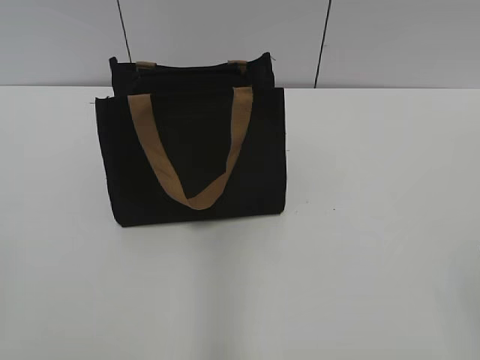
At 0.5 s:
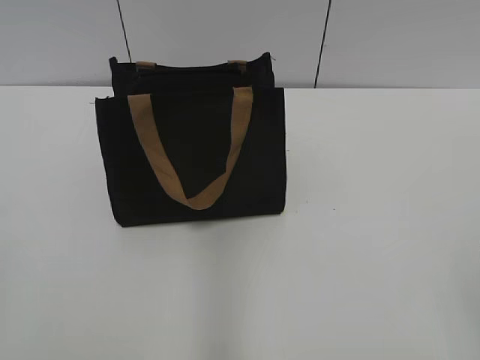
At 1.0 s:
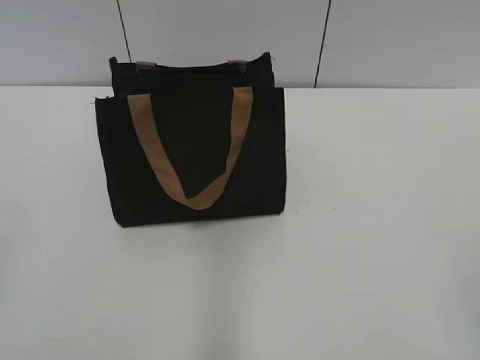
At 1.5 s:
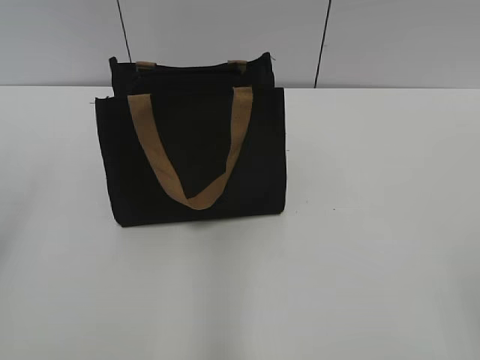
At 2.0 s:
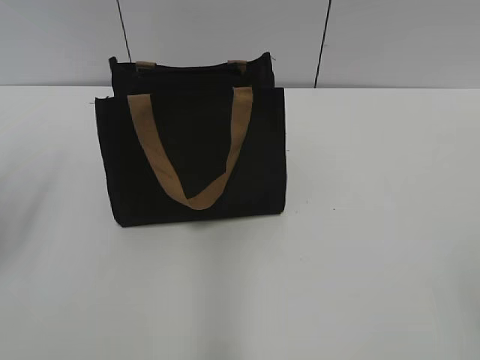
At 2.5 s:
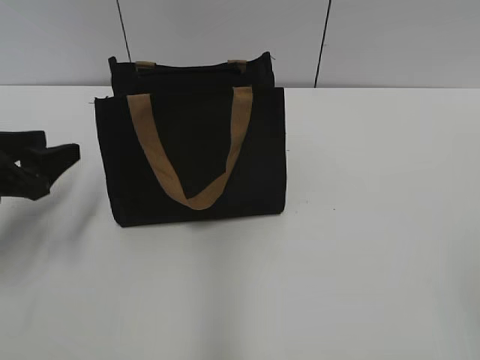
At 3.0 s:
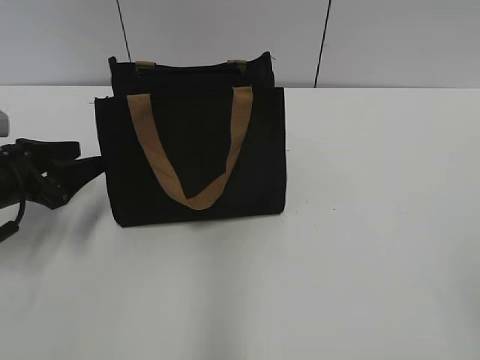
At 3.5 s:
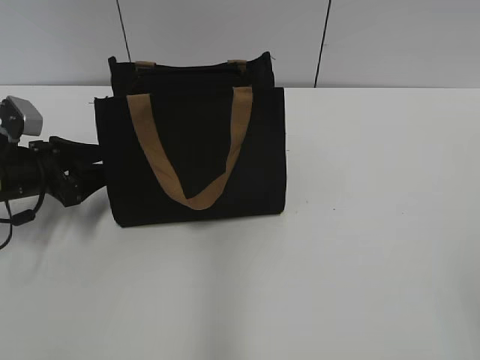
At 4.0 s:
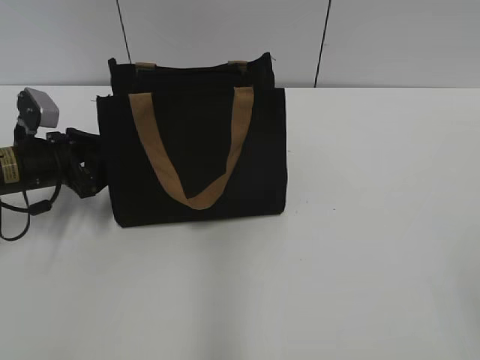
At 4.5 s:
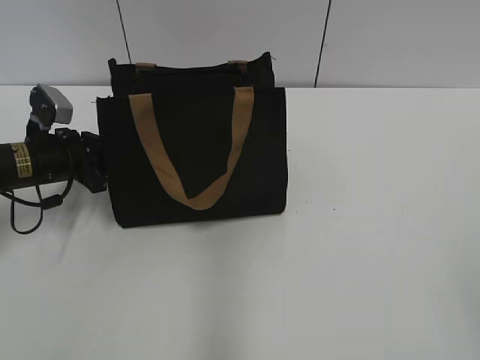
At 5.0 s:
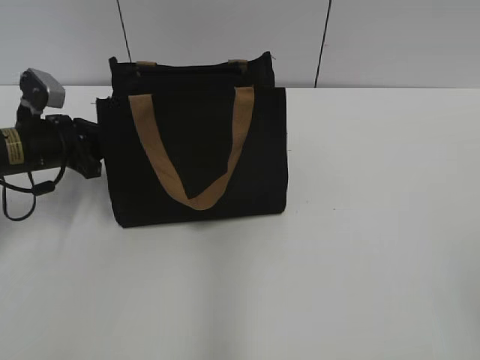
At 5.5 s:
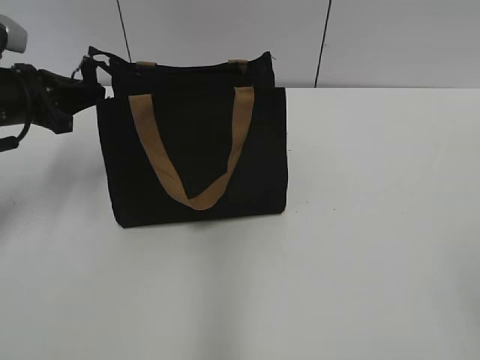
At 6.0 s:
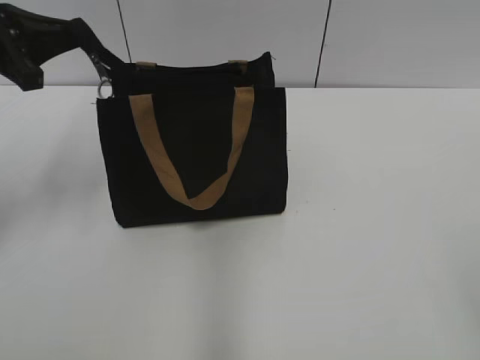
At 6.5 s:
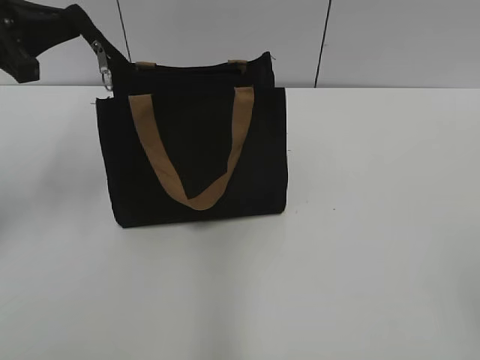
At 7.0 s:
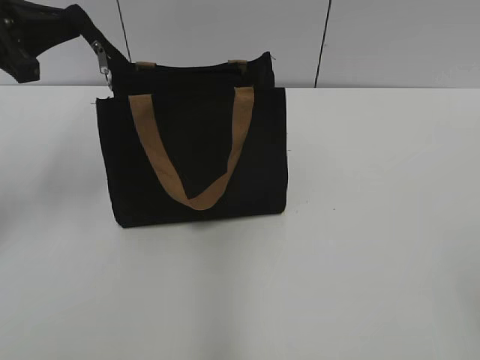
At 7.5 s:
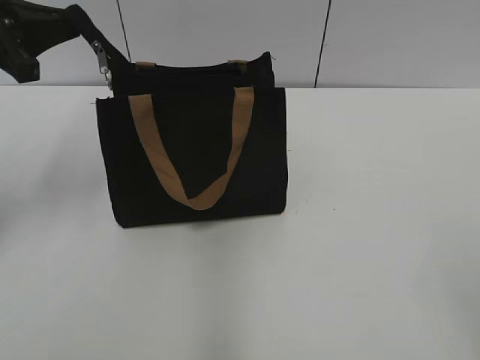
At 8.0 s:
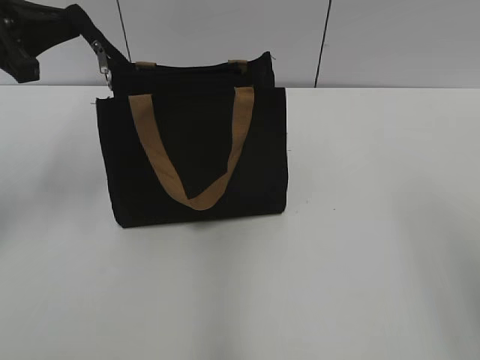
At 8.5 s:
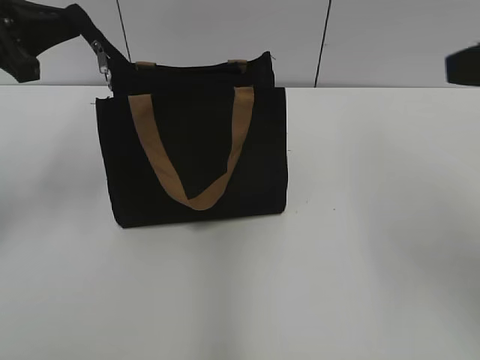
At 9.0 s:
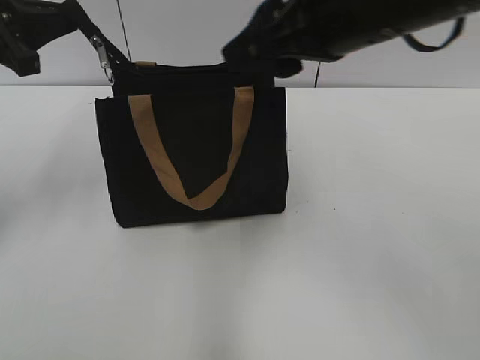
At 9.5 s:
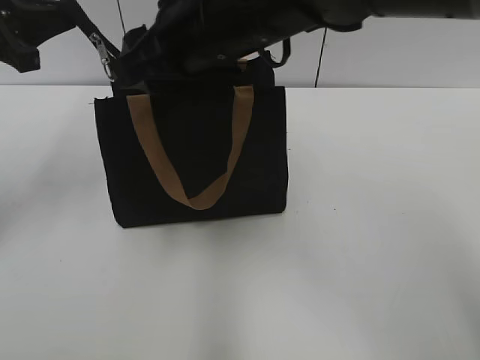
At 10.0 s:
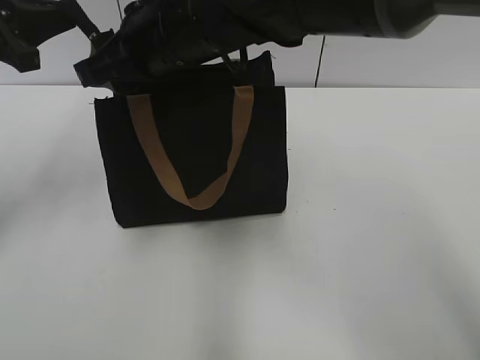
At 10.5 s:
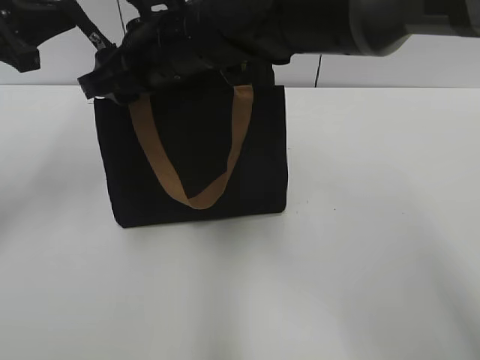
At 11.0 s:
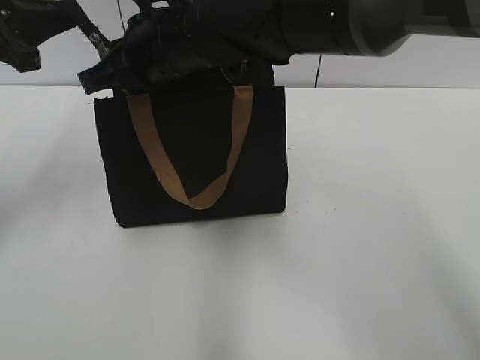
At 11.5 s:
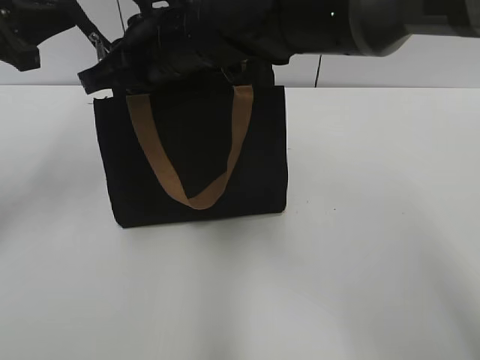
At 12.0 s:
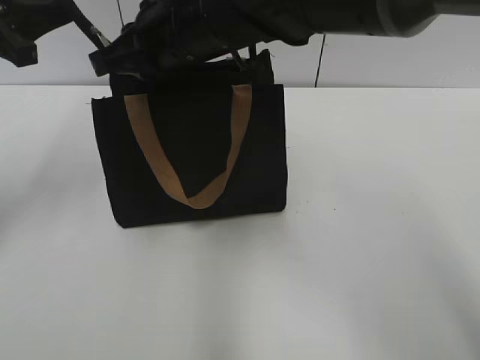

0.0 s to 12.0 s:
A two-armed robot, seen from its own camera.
2.0 to 4.0 s: The left gripper is displaced downward and forward by about 20 cm.
4.0 to 6.0 s: The left gripper shifts some 15 cm upward, and closes its fingers.
8.0 to 10.0 s: The right gripper heads to the left and forward, covering some 40 cm.
10.0 to 12.0 s: The right gripper closes.

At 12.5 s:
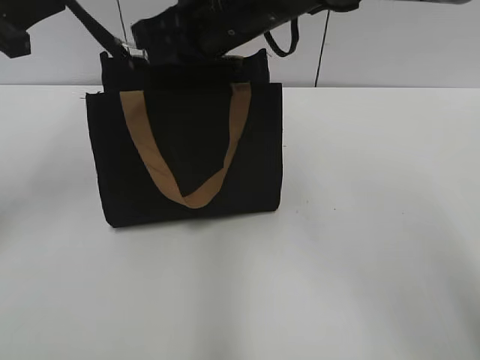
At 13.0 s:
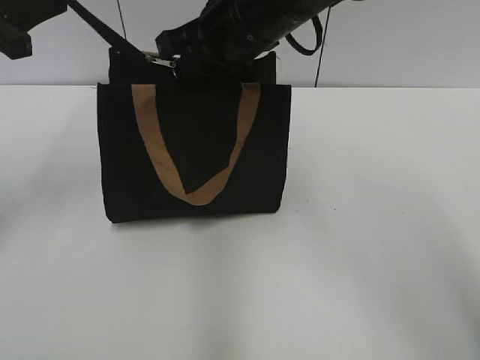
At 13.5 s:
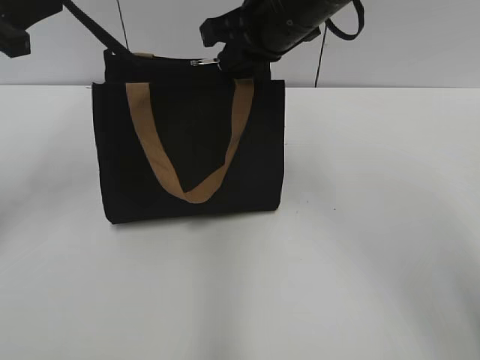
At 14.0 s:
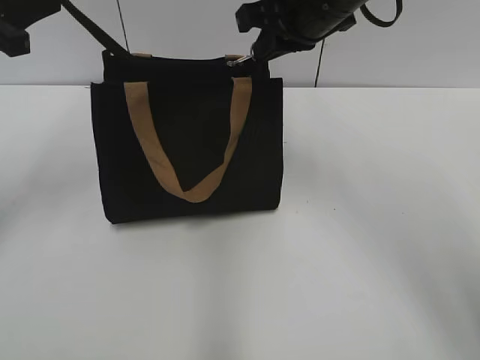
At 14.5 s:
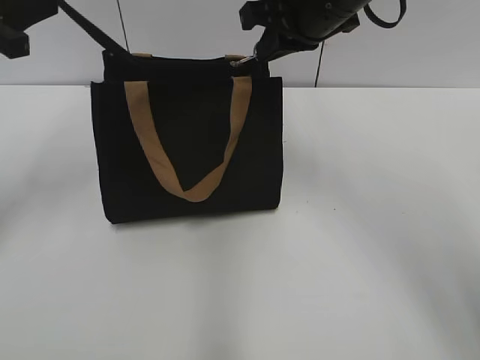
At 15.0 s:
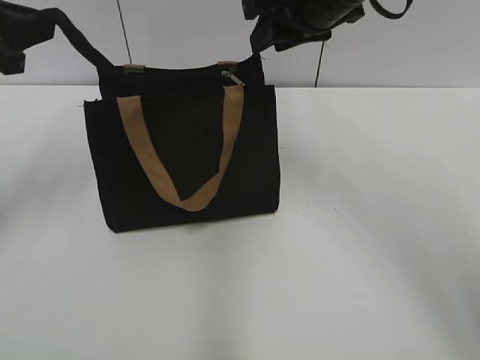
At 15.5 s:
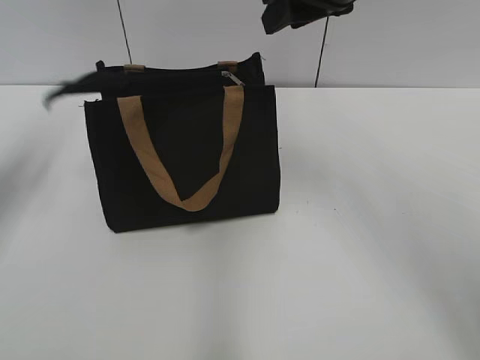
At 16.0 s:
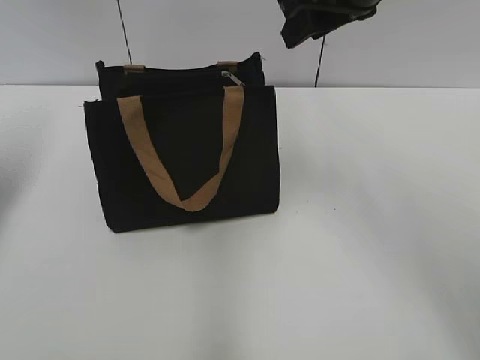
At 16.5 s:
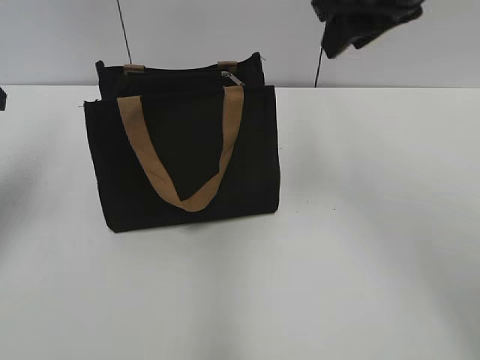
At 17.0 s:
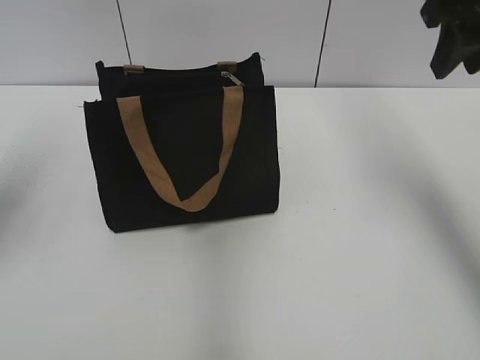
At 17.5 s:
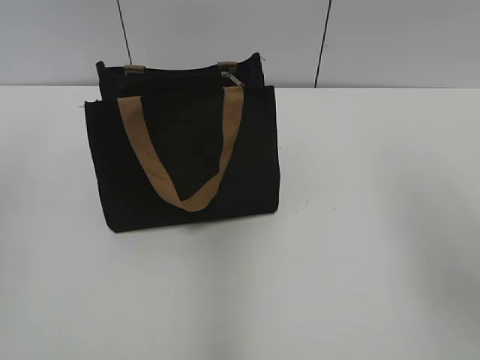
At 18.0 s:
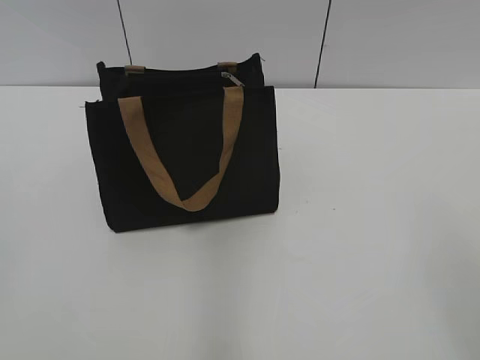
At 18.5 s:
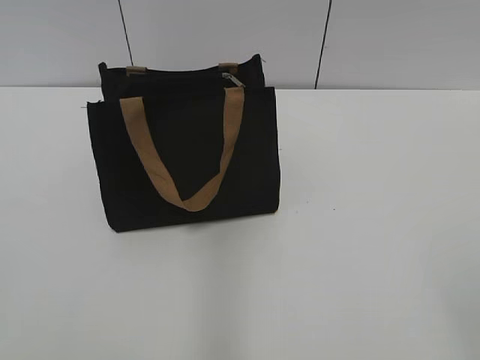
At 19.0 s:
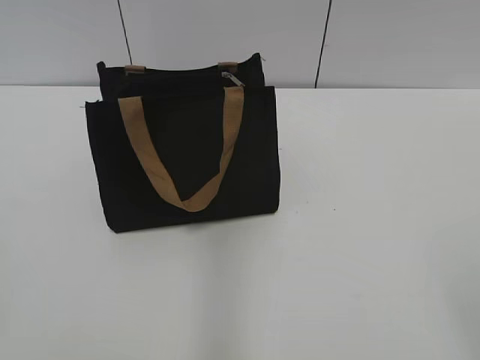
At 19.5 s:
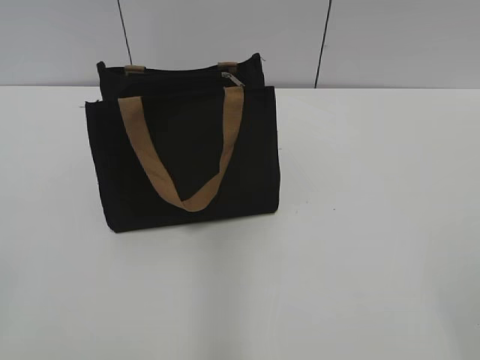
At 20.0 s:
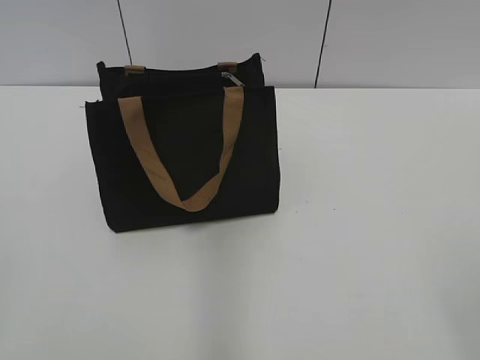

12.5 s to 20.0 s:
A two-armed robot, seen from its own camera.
Step, 12.5 to 14.5 s: Zip up the bag with your right hand.
Step, 15.0 to 15.5 s: Grab the zipper with your left hand.
12.5 to 14.5 s: The right gripper travels to the right by approximately 10 cm.
14.5 to 16.5 s: The left gripper heads downward, covering about 5 cm, and opens. The right gripper travels upward by some 5 cm, and opens up.
16.5 to 18.0 s: The left gripper shifts roughly 25 cm backward. The right gripper is displaced backward and to the right by approximately 35 cm.

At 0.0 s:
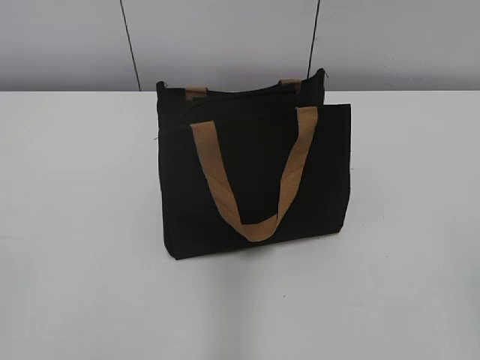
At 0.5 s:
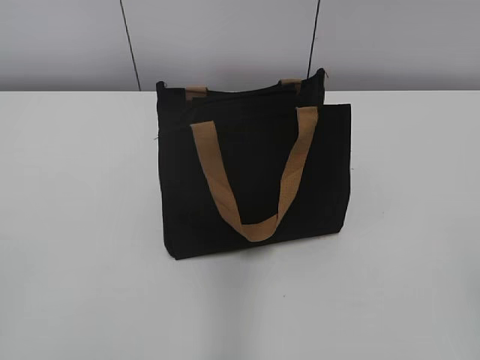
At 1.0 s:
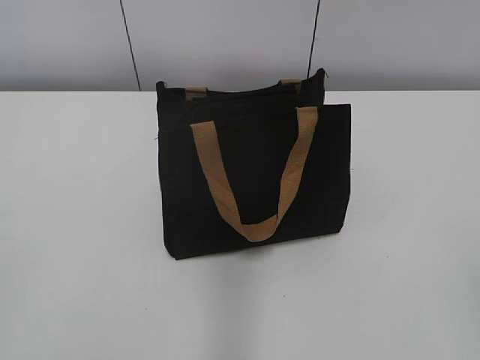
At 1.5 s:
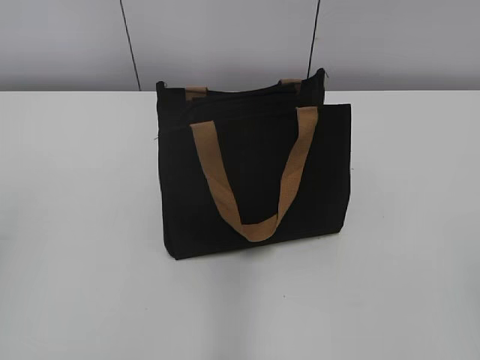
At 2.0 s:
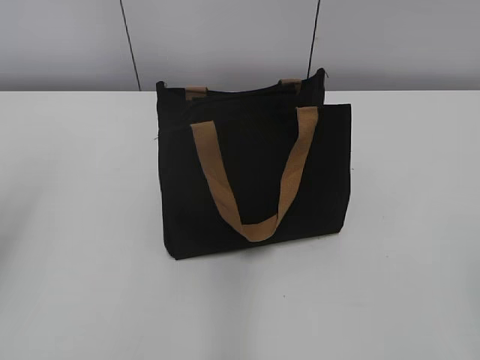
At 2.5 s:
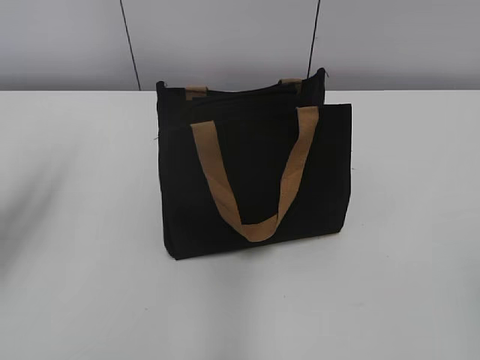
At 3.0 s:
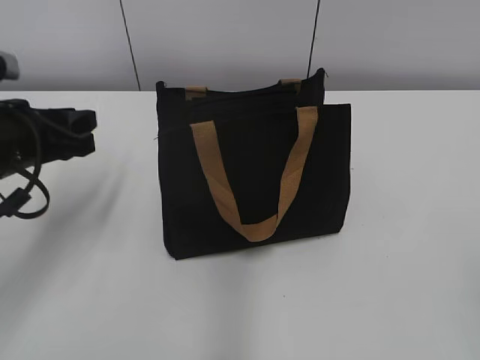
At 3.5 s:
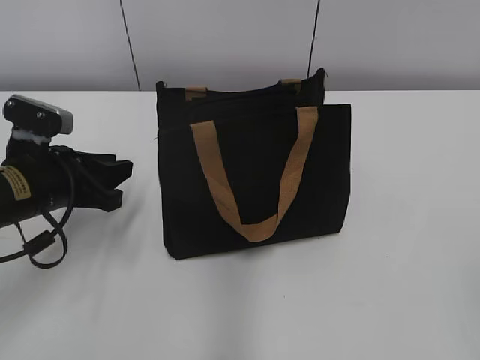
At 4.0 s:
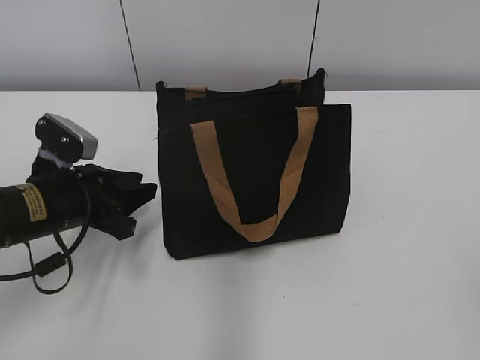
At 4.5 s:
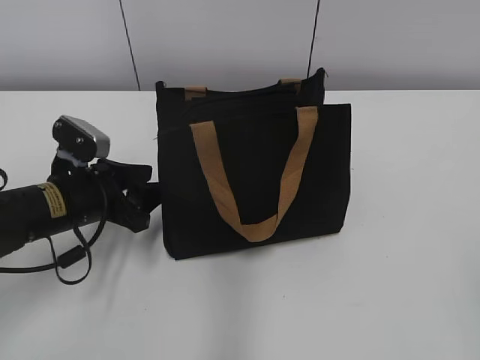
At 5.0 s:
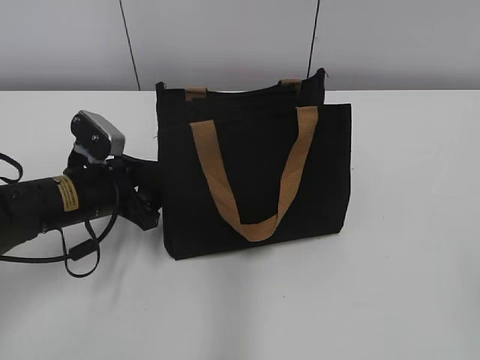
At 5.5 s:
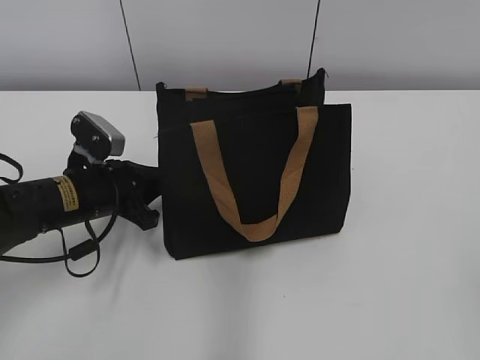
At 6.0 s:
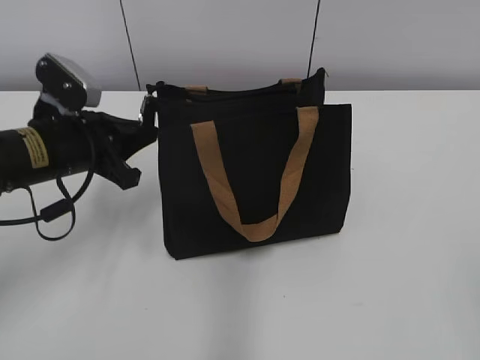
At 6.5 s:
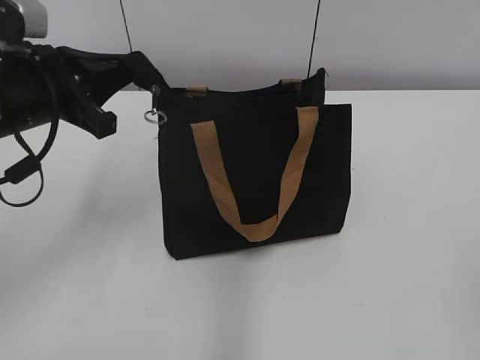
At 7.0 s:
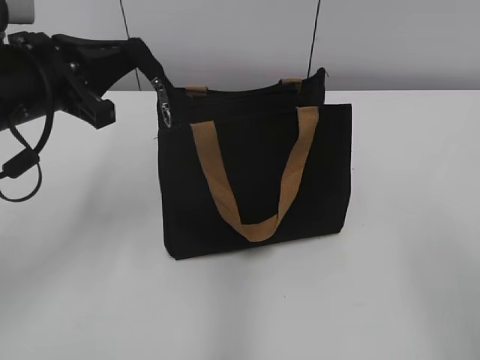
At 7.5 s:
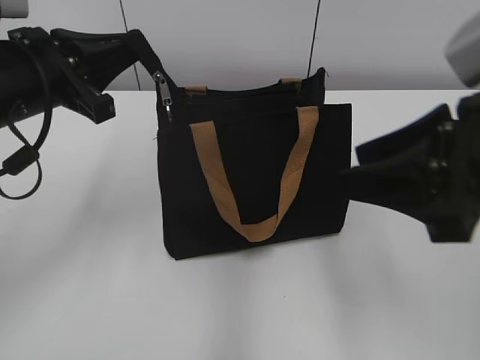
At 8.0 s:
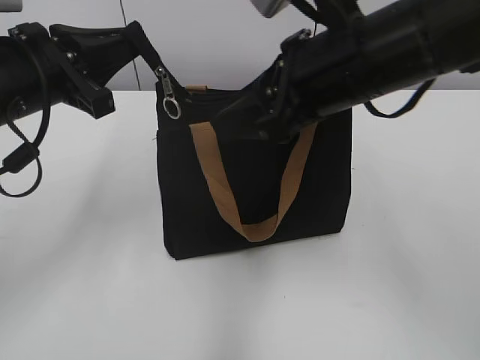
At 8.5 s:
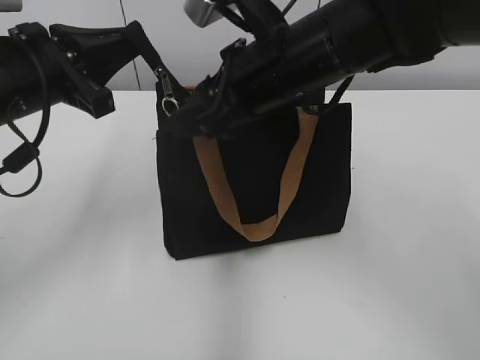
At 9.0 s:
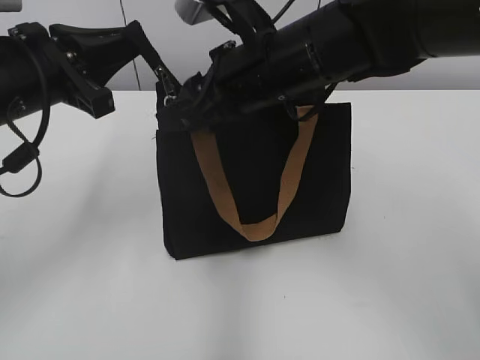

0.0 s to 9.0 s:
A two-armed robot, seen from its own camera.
2.0 to 4.5 s: The left gripper moves downward, forward and to the right, about 30 cm, and opens.
4.5 to 7.0 s: The left gripper travels upward by roughly 15 cm, and closes. Meanwhile the right gripper moves roughly 5 cm.
7.0 to 9.0 s: The right gripper shifts approximately 35 cm forward and to the left.
